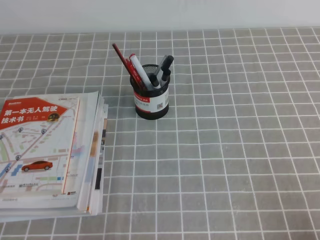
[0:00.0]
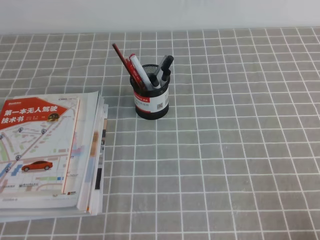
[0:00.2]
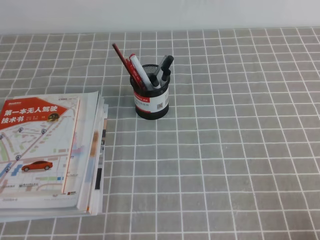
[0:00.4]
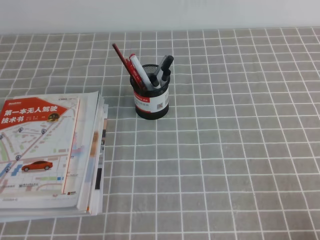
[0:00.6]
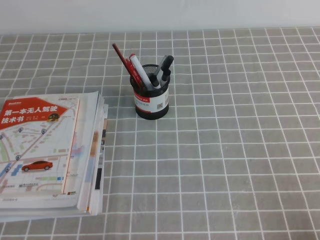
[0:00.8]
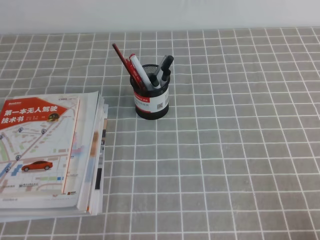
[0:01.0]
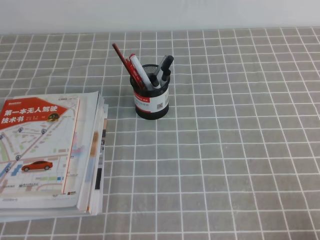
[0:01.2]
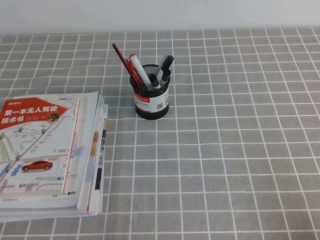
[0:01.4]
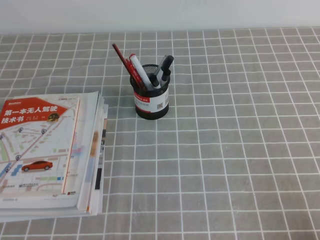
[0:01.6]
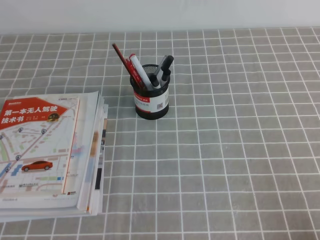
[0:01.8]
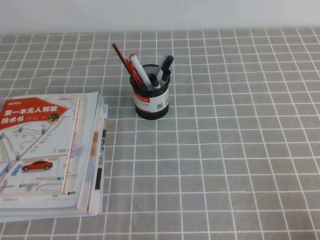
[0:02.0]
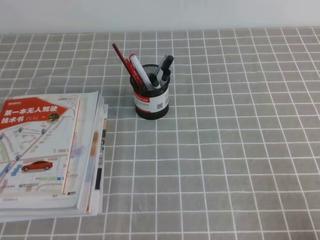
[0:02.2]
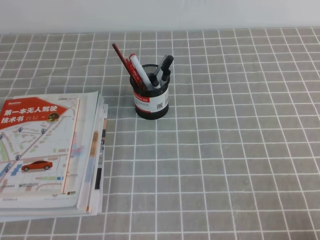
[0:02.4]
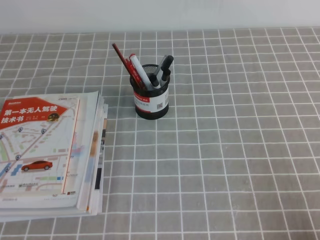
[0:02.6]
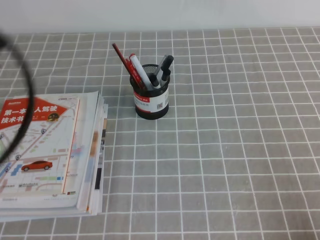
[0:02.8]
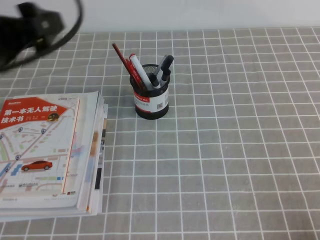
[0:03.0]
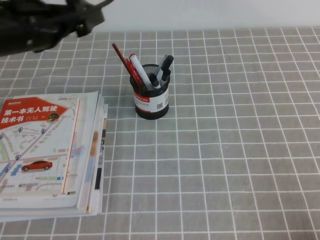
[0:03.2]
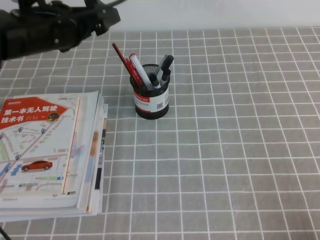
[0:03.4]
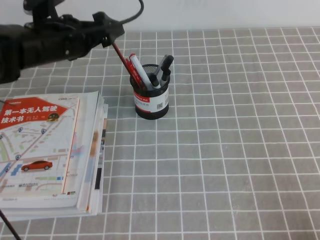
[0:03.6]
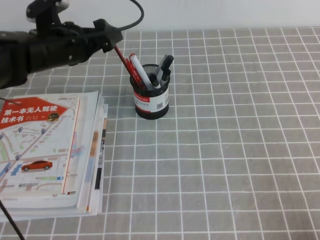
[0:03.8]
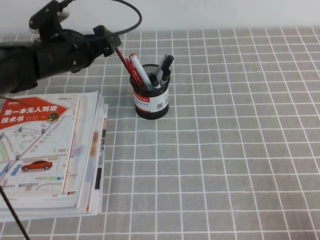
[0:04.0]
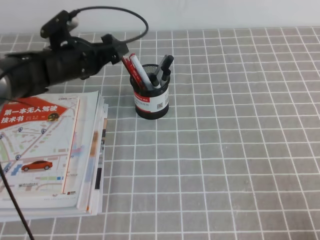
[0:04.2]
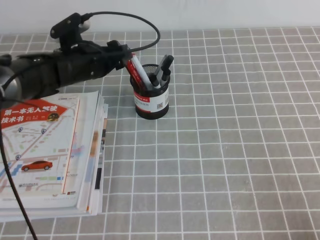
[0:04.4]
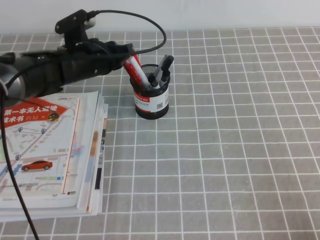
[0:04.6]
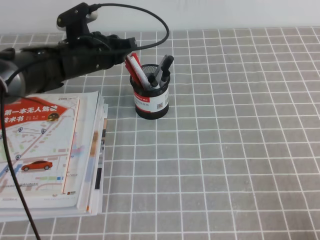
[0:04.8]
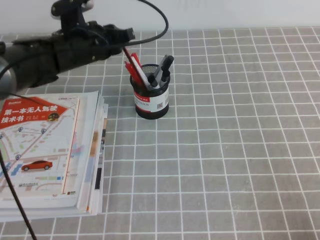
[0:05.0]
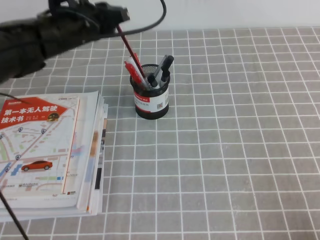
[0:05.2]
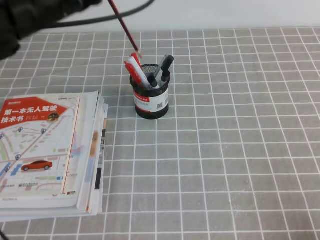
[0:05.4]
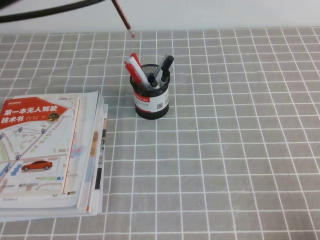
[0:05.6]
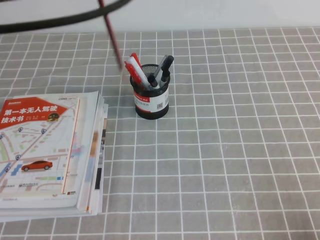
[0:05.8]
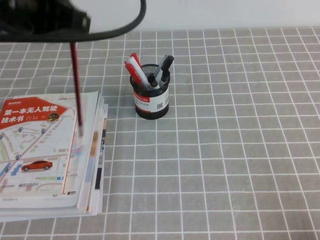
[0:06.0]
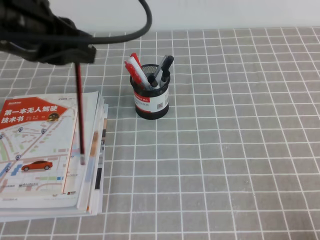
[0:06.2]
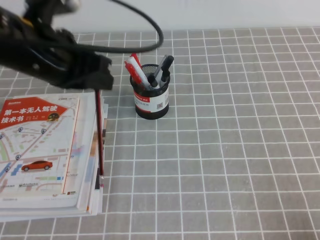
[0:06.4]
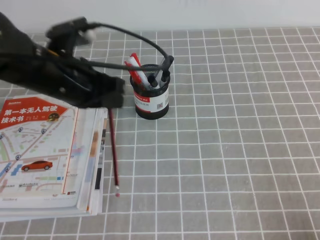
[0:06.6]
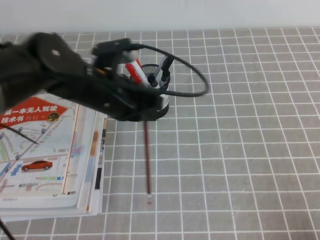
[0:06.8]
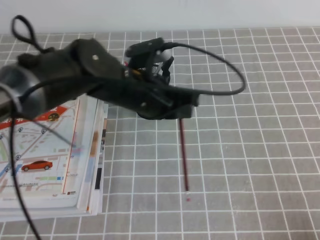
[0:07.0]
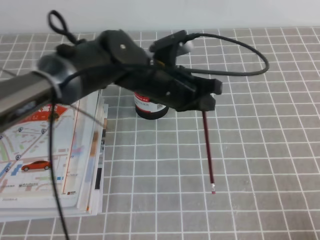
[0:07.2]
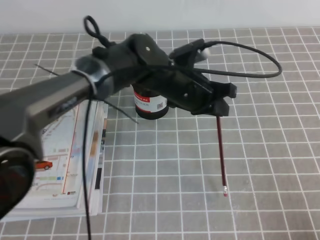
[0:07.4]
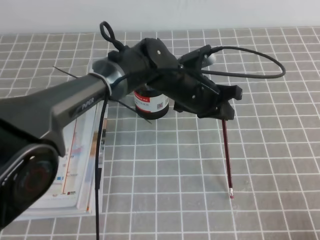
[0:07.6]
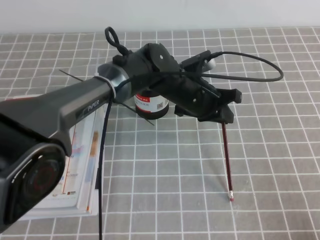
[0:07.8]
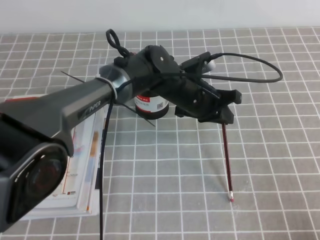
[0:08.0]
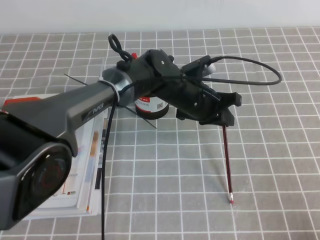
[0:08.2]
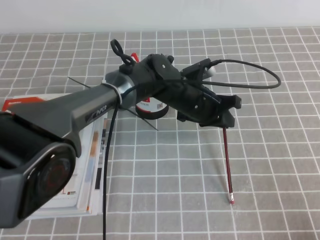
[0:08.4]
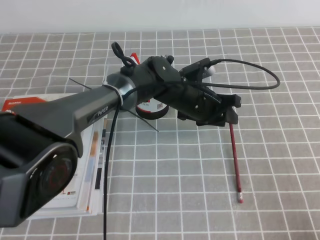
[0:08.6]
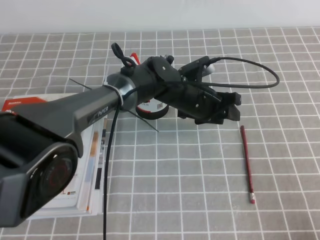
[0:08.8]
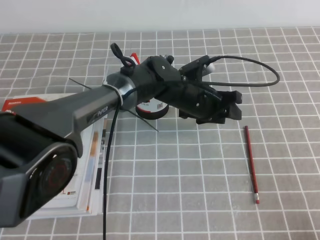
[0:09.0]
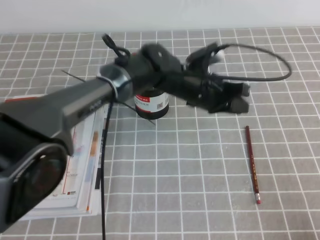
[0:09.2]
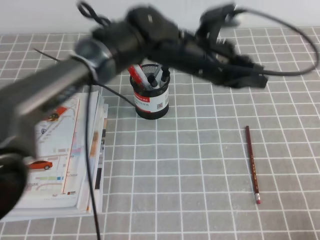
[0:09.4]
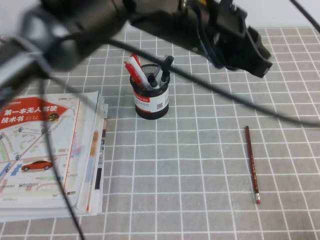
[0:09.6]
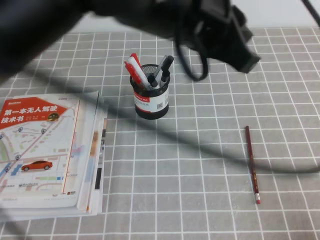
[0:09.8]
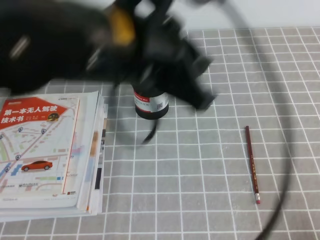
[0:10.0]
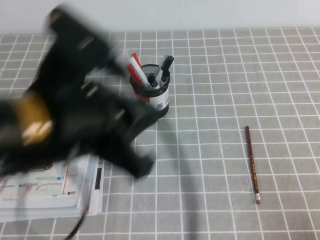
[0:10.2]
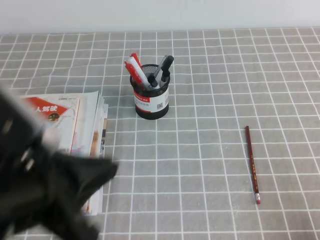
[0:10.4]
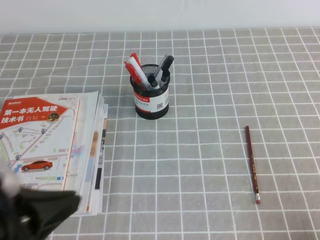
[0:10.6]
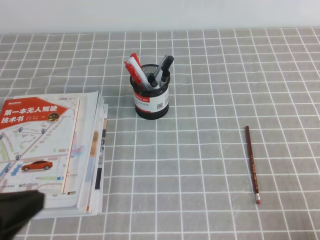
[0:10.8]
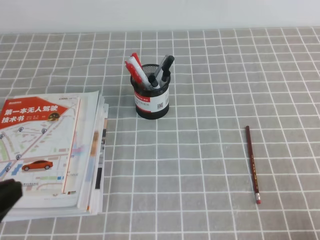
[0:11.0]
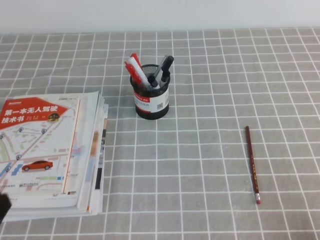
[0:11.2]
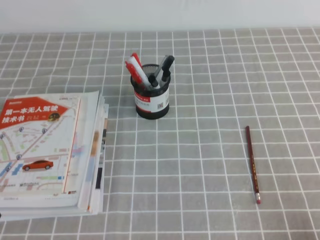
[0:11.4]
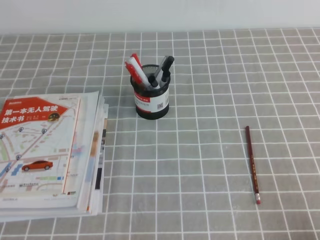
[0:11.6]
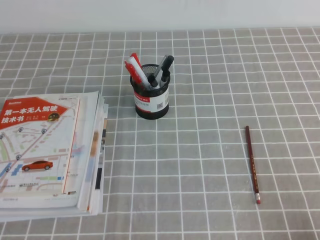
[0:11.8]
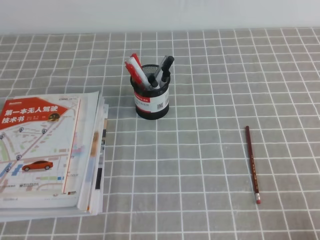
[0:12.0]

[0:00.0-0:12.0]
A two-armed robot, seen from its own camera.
0:01.6 to 0:03.0: The left gripper moves upward and forward, approximately 25 cm, and opens.
0:03.0 to 0:04.4: The left gripper travels forward, downward and to the right by approximately 25 cm.
0:04.4 to 0:06.0: The left gripper goes some 25 cm upward and backward, and closes up.
0:06.0 to 0:07.6: The left gripper travels downward, to the right and forward by roughly 30 cm.
0:07.6 to 0:09.0: The left gripper opens up.
0:09.0 to 0:10.4: The left gripper shifts roughly 40 cm backward, to the left and upward, and closes its fingers.
0:10.4 to 0:12.0: The left gripper heads downward and to the left, covering approximately 20 cm.

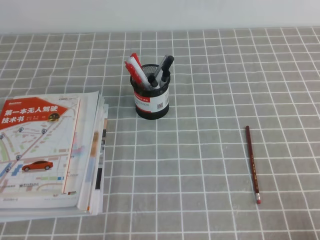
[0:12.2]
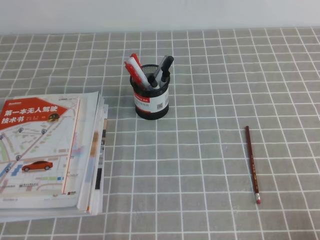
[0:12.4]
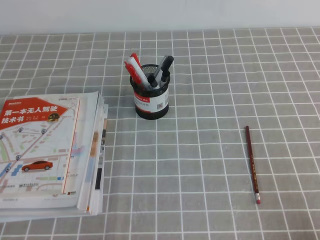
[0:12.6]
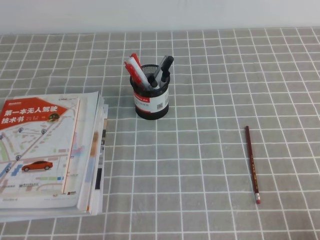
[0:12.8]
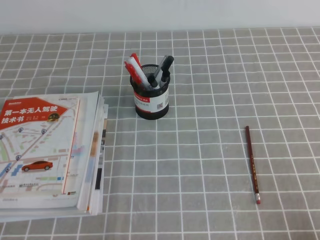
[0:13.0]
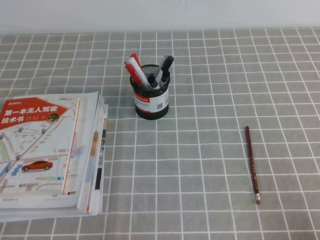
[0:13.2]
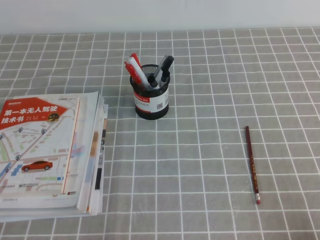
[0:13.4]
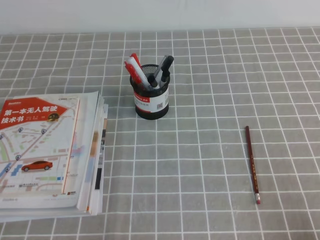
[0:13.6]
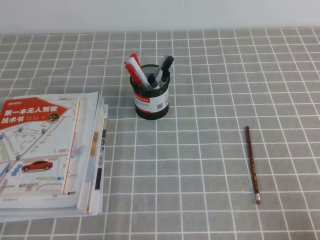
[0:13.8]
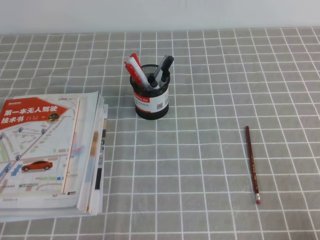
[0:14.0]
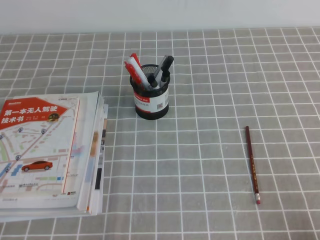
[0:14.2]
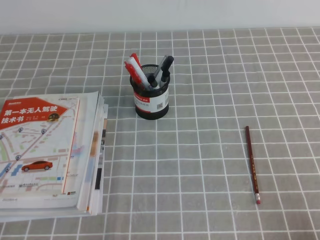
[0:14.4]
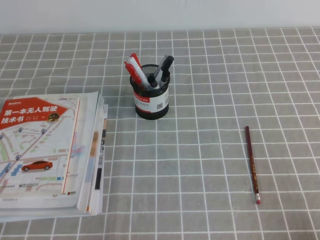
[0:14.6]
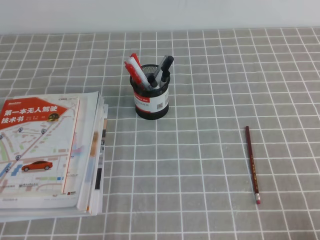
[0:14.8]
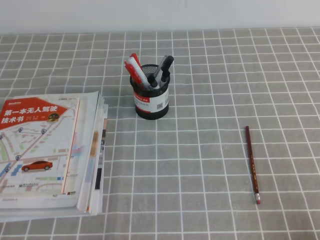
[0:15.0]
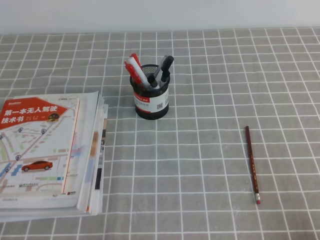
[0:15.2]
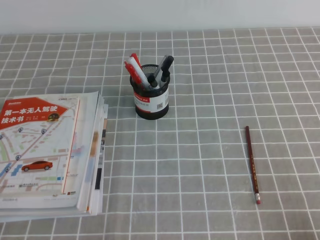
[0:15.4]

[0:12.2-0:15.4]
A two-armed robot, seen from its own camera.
0:13.8 to 0:15.4: Both grippers stay put.
